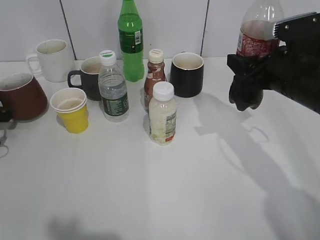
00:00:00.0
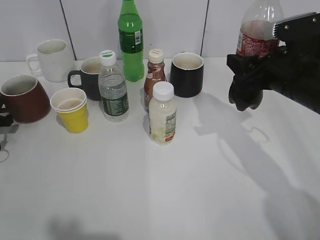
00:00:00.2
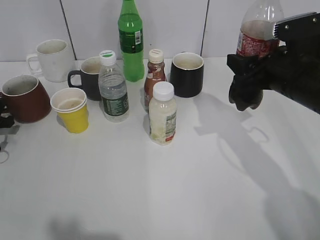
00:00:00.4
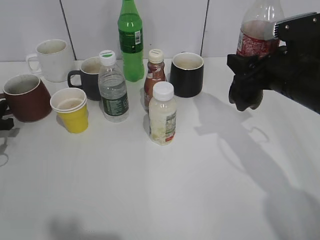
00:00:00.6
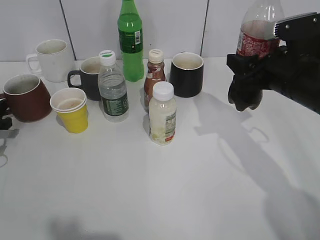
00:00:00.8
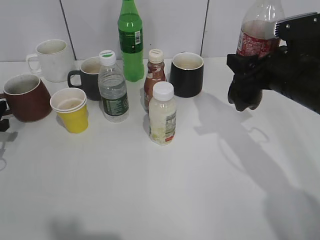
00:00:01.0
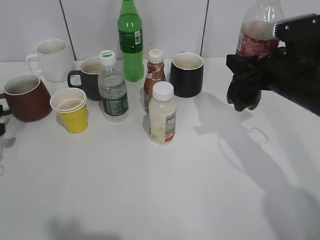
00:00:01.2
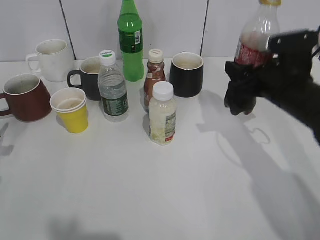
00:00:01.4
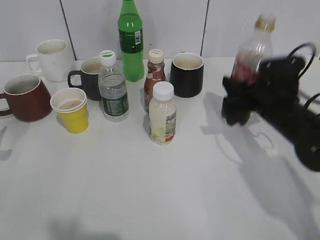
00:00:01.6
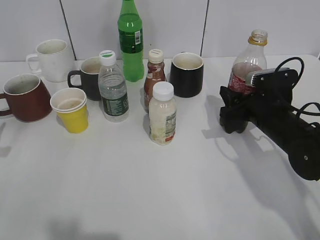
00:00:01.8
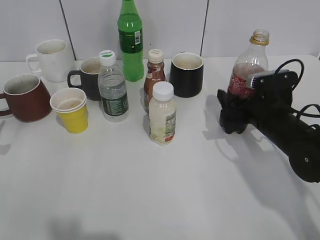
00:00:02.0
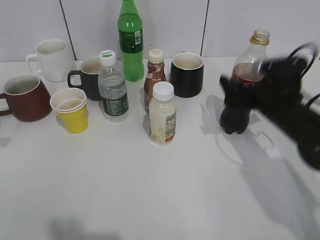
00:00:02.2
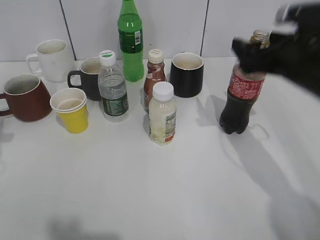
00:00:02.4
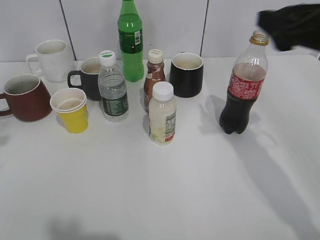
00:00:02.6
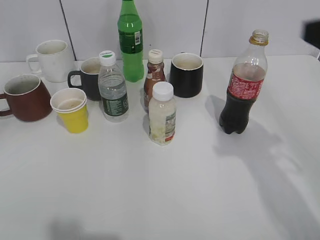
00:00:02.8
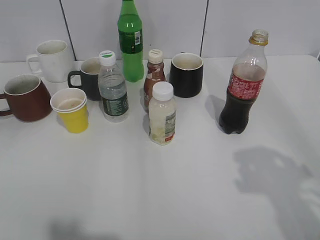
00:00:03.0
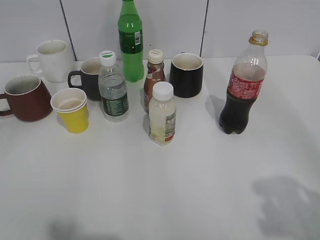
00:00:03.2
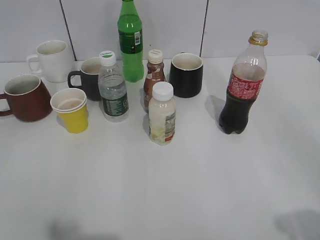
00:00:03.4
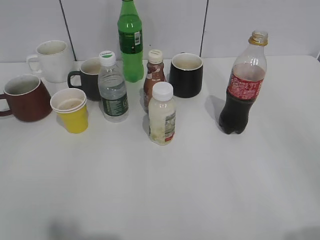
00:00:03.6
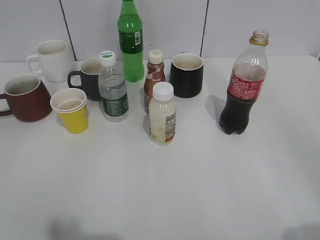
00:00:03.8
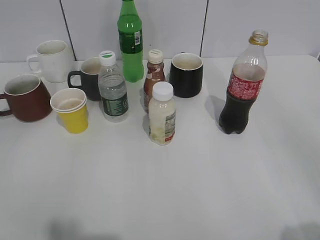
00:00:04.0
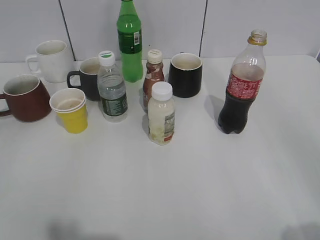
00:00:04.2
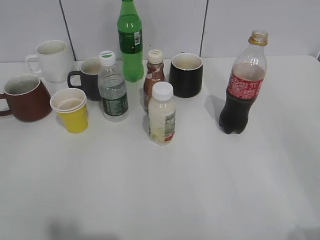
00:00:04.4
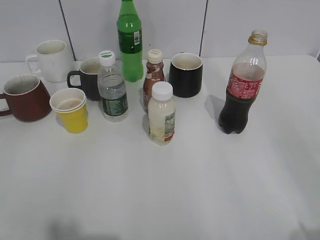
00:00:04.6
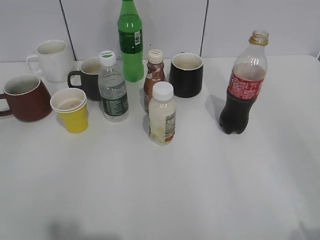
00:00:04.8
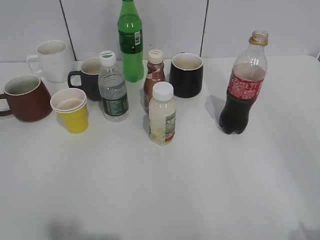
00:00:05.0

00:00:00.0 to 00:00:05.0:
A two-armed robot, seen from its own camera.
Step, 00:00:00.0 to 00:00:02.4: Place the cola bottle on the table with right gripper.
00:00:00.0 to 00:00:01.6: The right gripper moves downward, some 5 cm. Meanwhile the left gripper heads backward and upward, covering roughly 10 cm, and opens its fingers.
00:00:01.6 to 00:00:03.4: Both grippers move backward and upward, roughly 30 cm. The right gripper opens its fingers.
